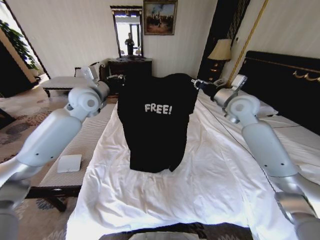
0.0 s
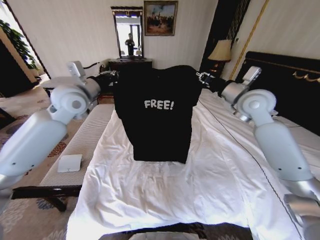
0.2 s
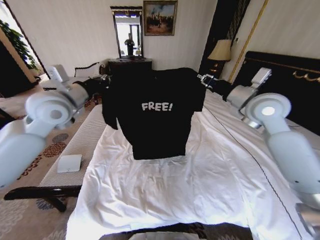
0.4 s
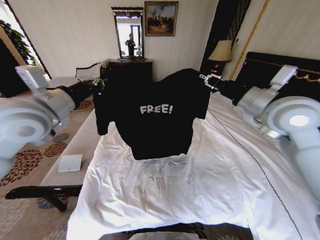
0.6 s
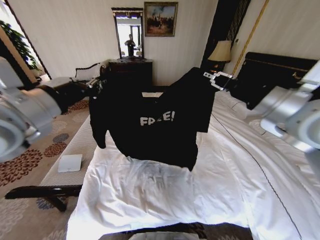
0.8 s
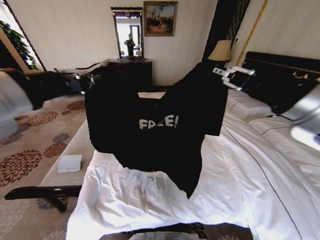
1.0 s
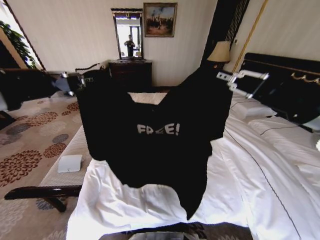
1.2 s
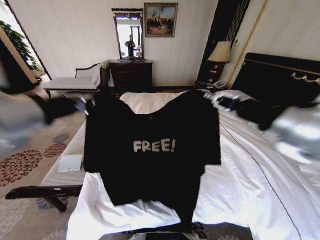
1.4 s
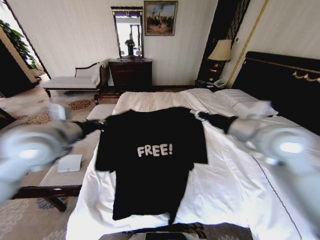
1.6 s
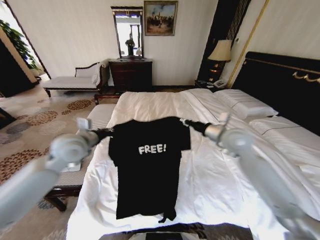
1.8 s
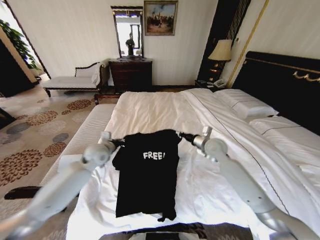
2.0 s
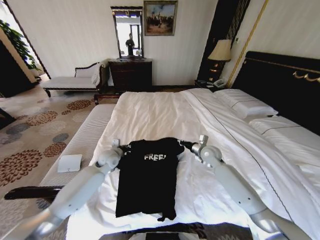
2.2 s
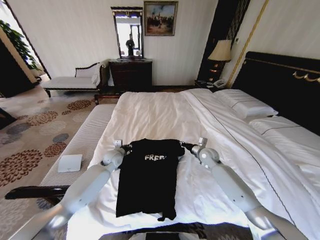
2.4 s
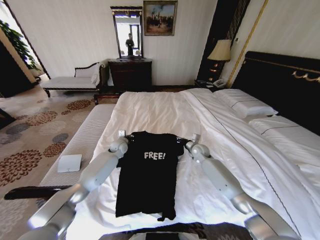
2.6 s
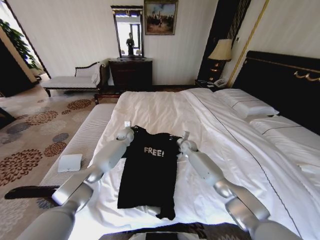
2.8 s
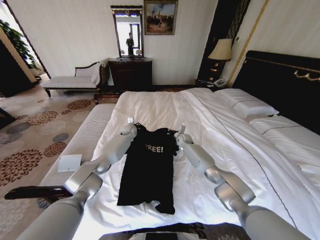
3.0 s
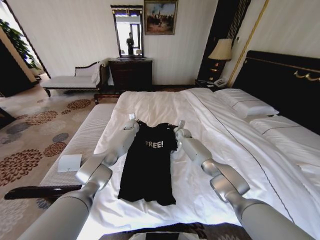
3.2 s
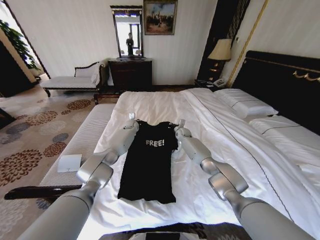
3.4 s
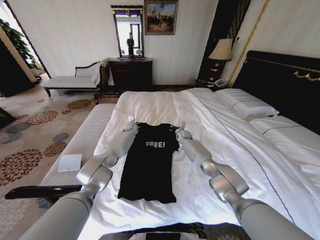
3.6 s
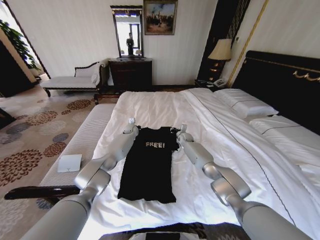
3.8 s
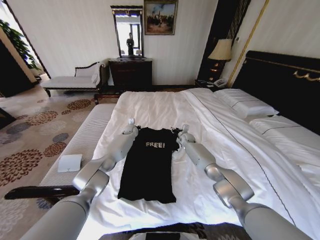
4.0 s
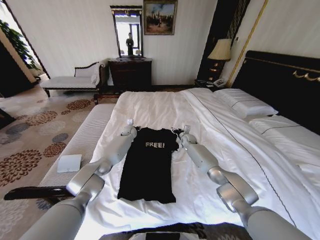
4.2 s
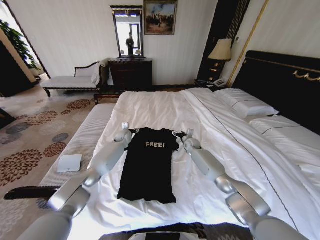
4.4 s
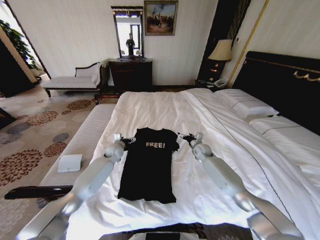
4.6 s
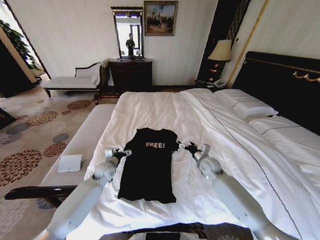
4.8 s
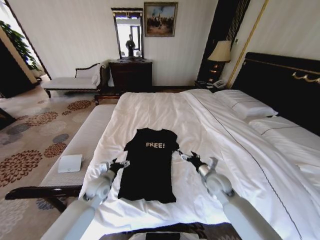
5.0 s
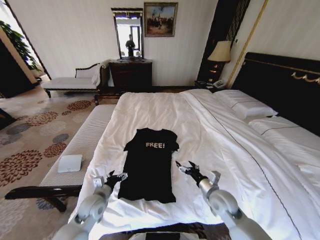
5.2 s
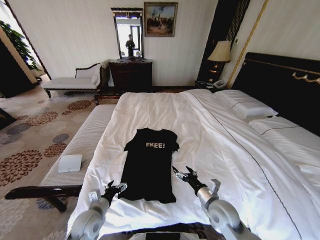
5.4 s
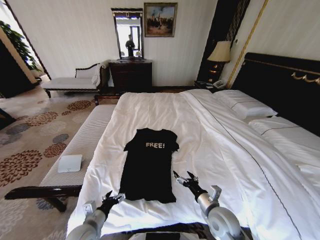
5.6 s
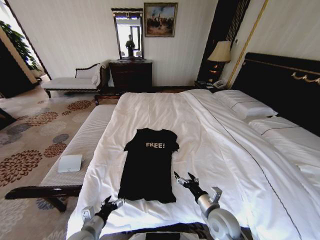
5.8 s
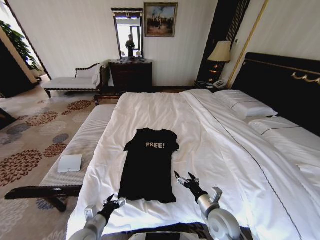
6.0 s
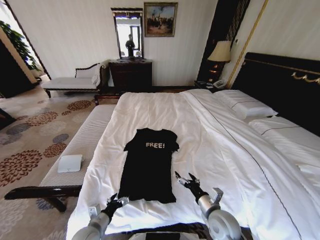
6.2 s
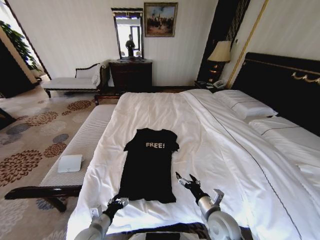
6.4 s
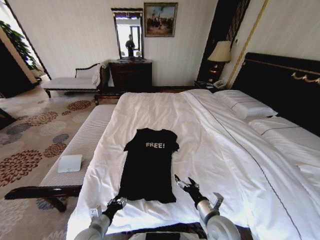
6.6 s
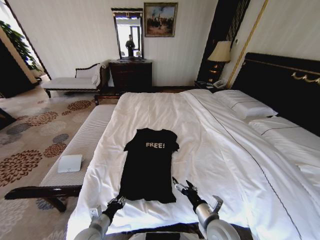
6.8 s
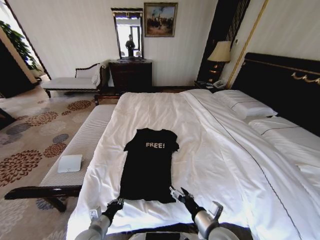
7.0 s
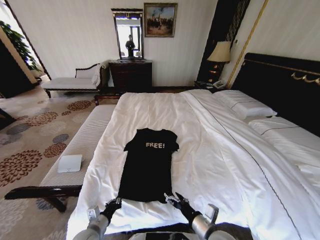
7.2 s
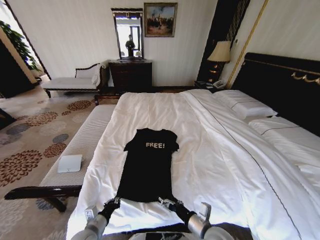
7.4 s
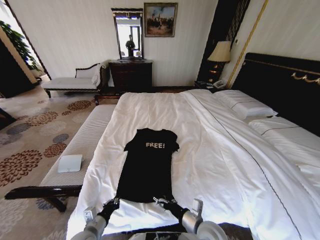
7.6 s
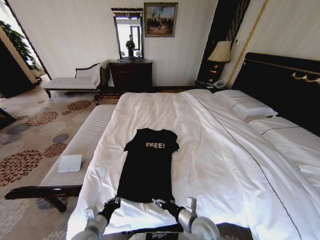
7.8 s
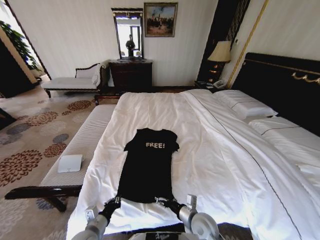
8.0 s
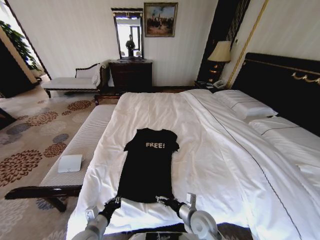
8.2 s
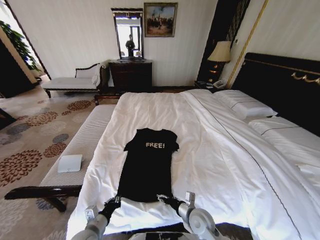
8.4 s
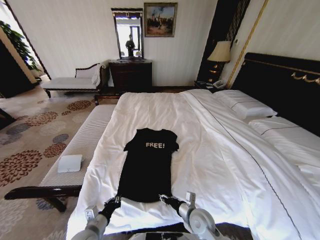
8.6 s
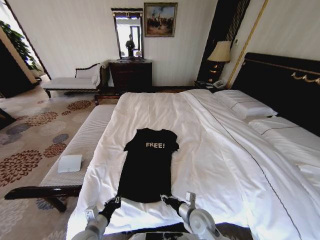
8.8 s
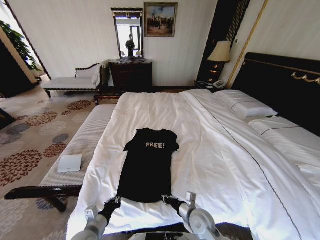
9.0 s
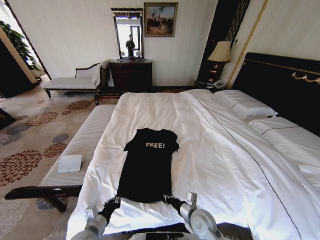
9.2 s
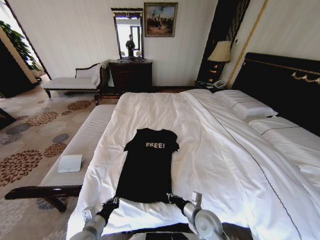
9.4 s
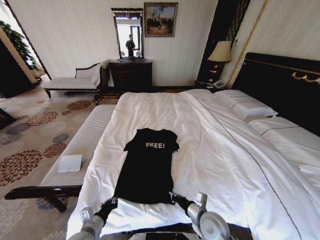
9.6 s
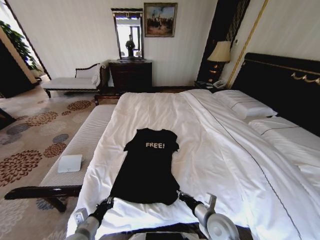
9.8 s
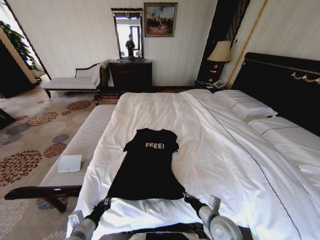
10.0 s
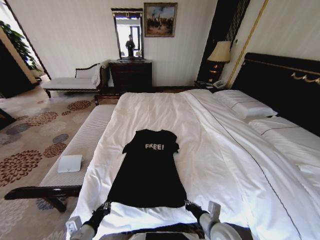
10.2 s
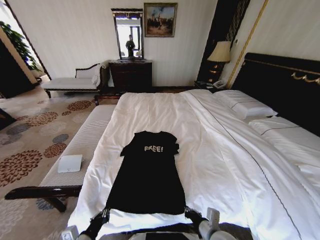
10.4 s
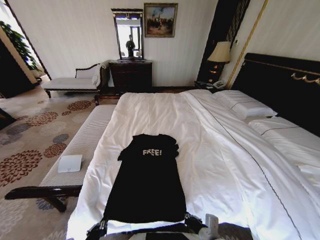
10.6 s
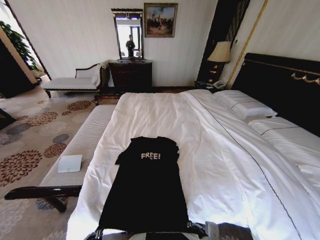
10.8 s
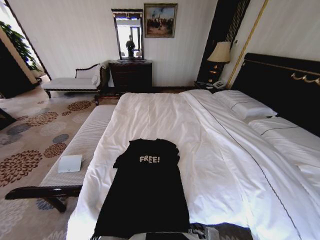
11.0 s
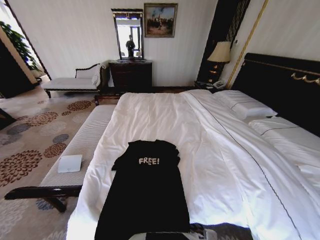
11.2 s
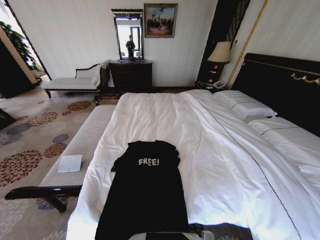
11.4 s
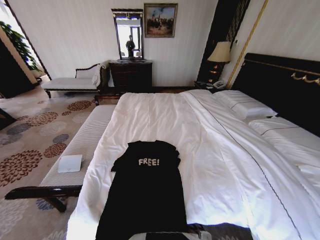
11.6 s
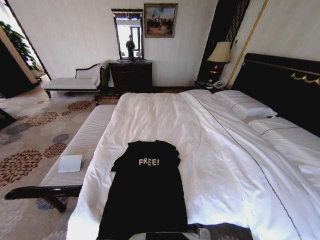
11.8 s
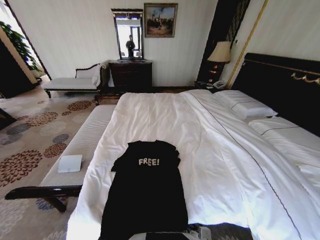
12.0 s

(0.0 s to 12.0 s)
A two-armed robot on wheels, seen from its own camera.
Task of the whole recording: Fold the clothes on the bed.
0.0 s - 1.6 s: The two grippers go approximately 15 cm backward.
1.6 s - 3.0 s: The left gripper travels forward, downward and to the right by about 40 cm. Meanwhile the right gripper moves downward and forward, roughly 40 cm.
3.0 s - 4.4 s: The left gripper opens up. Meanwhile the right gripper opens up.
4.4 s - 6.0 s: The two grippers go about 40 cm backward.
6.0 s - 7.6 s: The right gripper goes about 5 cm to the left. Meanwhile the left gripper closes up.
7.6 s - 9.0 s: The right gripper goes some 5 cm downward, and closes.
9.0 s - 10.4 s: The two grippers go roughly 5 cm backward.
10.4 s - 12.0 s: Both grippers travel together backward, about 5 cm.

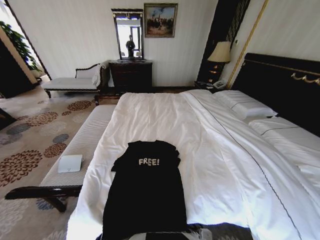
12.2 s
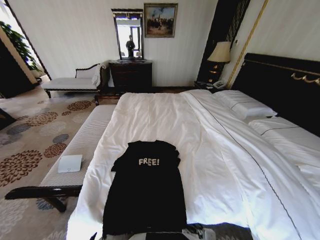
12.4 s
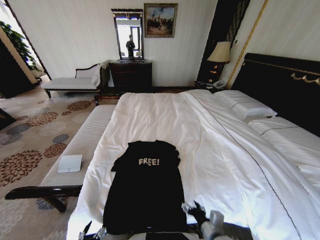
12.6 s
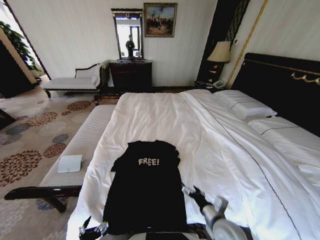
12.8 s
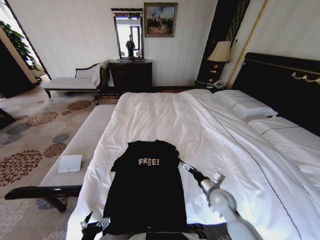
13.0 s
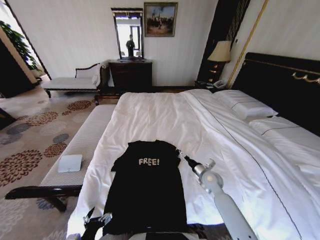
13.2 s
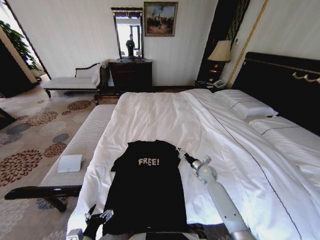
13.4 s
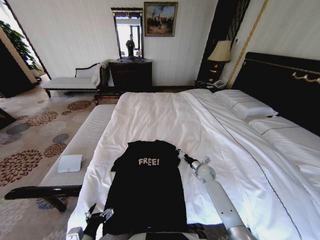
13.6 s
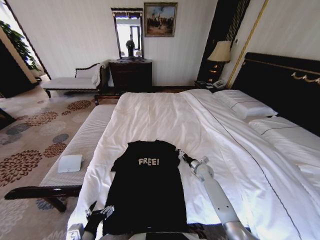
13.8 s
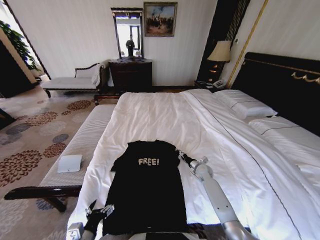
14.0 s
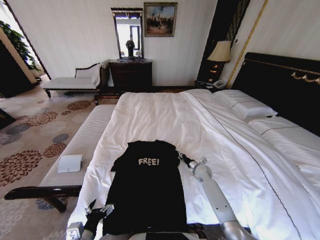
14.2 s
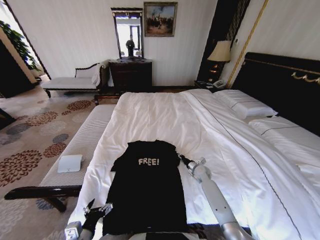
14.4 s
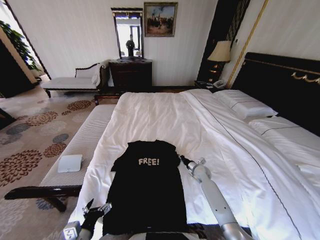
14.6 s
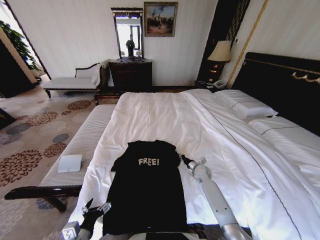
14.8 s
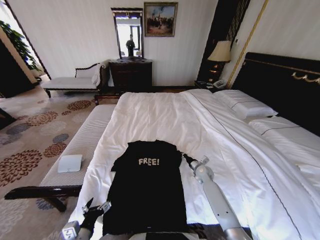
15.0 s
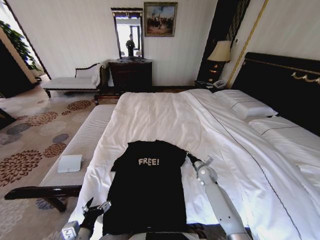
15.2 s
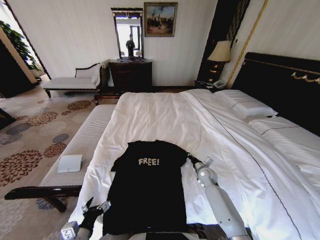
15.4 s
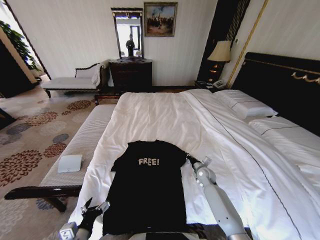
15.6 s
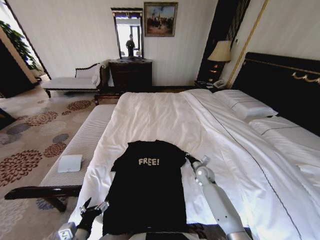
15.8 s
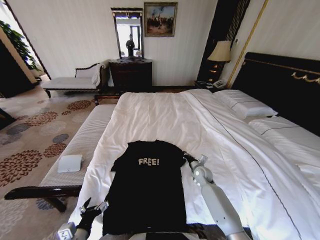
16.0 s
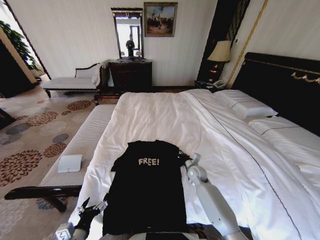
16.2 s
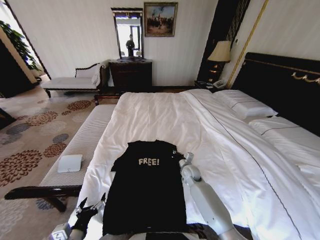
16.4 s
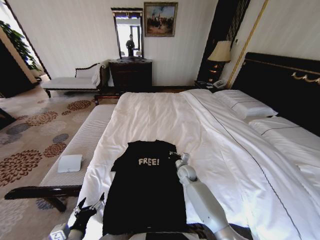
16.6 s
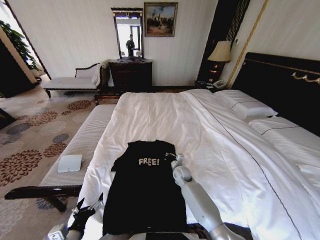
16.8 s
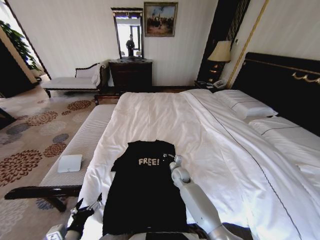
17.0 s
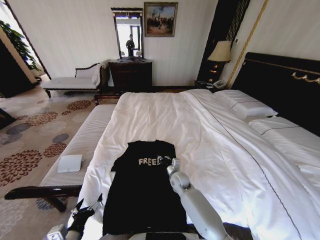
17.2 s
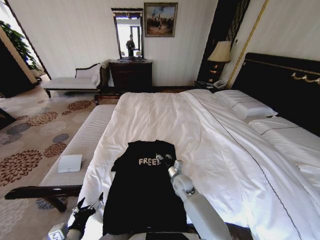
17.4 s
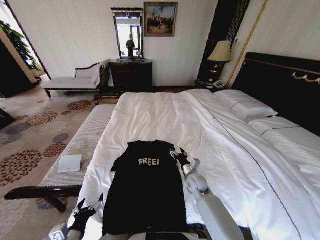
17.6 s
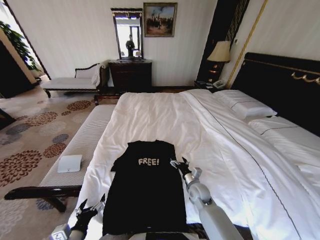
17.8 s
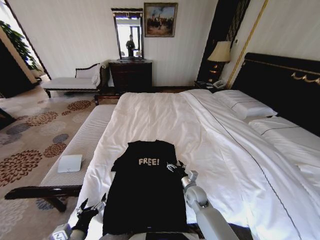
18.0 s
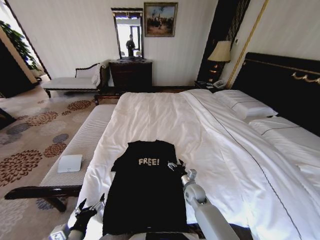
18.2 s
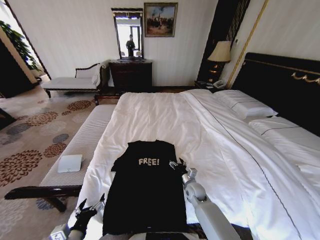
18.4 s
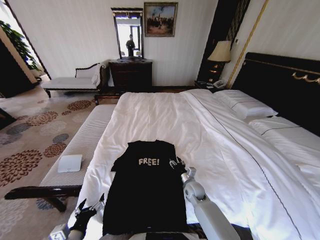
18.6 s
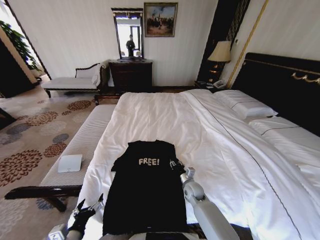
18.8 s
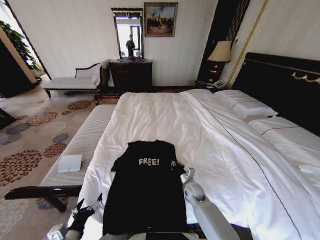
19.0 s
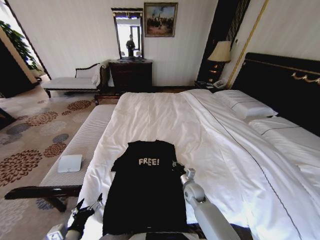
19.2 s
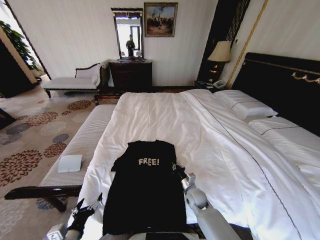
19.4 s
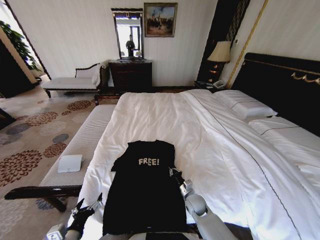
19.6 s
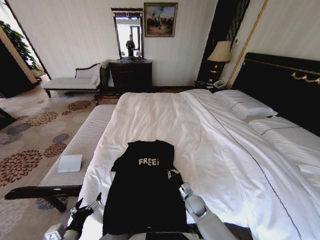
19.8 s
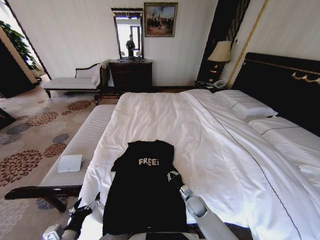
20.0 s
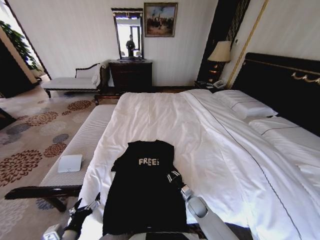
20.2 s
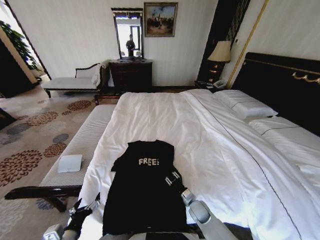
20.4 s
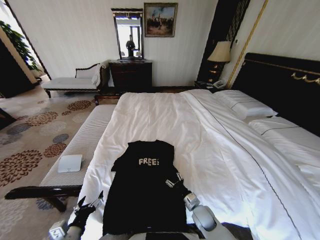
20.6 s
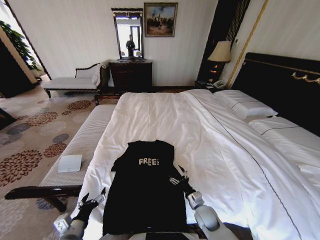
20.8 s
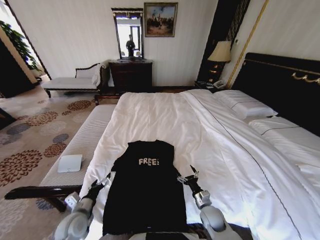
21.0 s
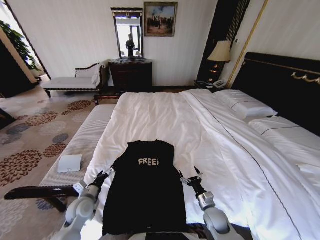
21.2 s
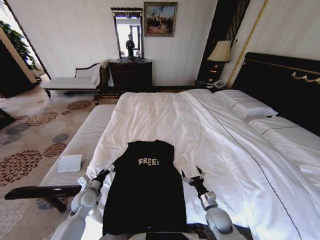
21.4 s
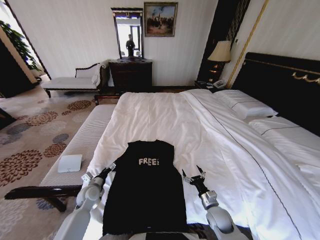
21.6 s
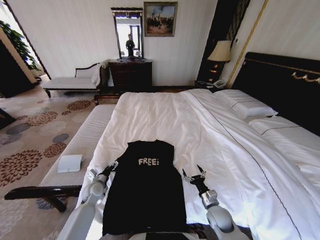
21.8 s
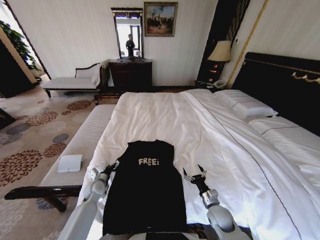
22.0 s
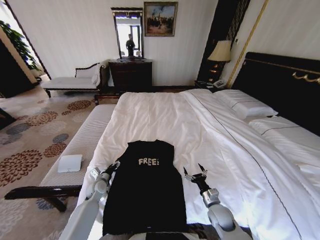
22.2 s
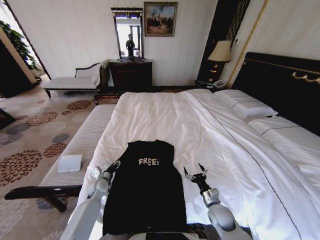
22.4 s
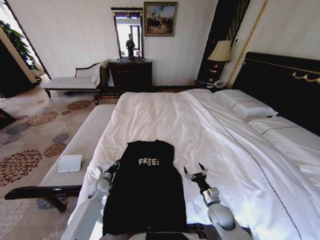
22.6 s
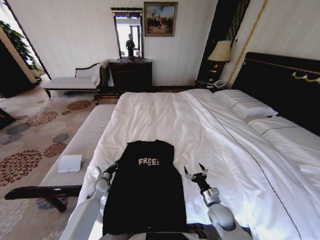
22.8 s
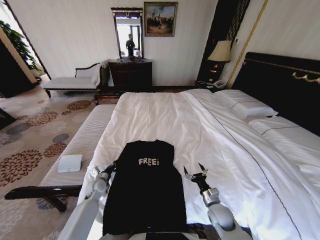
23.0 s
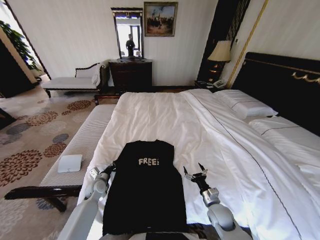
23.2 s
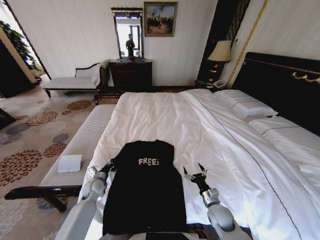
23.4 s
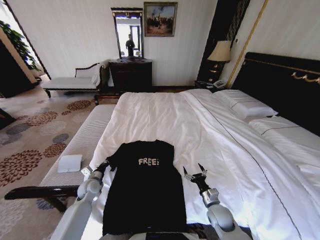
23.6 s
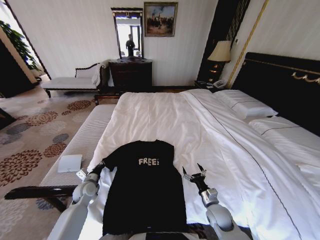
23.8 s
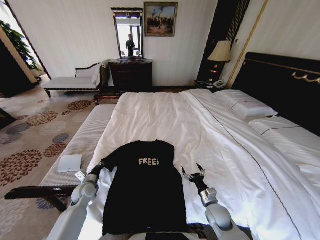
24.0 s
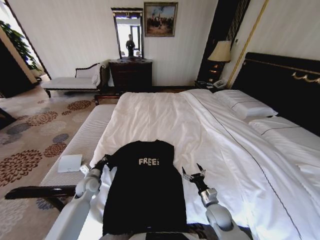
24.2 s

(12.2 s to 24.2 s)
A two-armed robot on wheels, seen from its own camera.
Task of the whole recording: Fold the clothes on the bed.
12.2 s - 13.8 s: The right gripper travels forward by some 35 cm, and opens its fingers. Meanwhile the left gripper moves forward, roughly 10 cm, and opens up.
13.8 s - 15.2 s: The right gripper closes up.
15.2 s - 16.6 s: The right gripper goes about 10 cm to the left.
16.6 s - 18.2 s: The right gripper shifts roughly 10 cm backward, and opens its fingers.
18.2 s - 19.8 s: The right gripper changes place by some 5 cm, and closes its fingers.
19.8 s - 21.2 s: The left gripper heads forward, covering about 15 cm; the right gripper goes approximately 10 cm to the right and backward, and opens.
21.2 s - 22.6 s: The left gripper travels forward and downward by about 10 cm, and closes.
22.6 s - 24.2 s: The left gripper moves roughly 5 cm, and closes.
